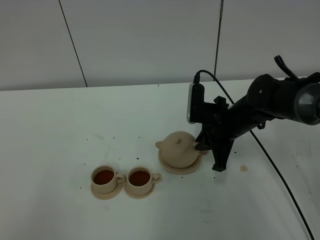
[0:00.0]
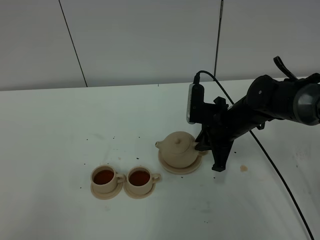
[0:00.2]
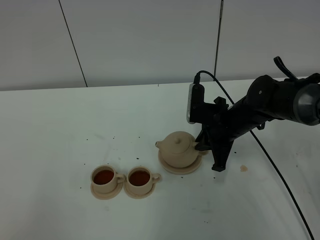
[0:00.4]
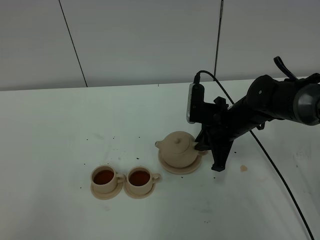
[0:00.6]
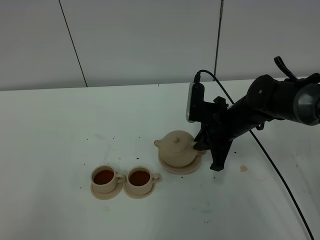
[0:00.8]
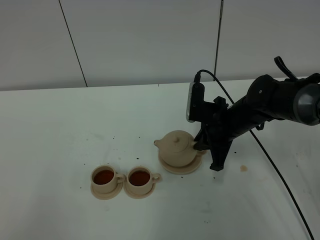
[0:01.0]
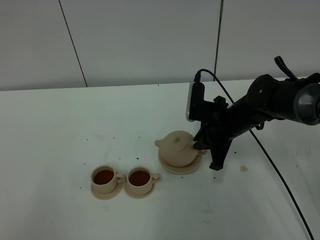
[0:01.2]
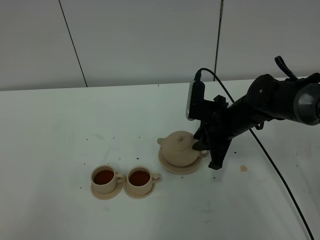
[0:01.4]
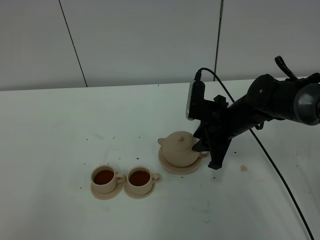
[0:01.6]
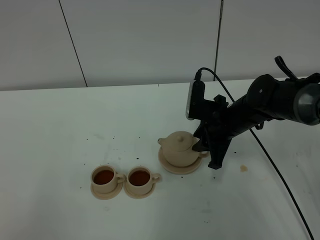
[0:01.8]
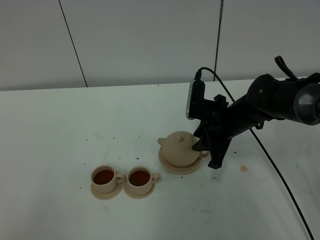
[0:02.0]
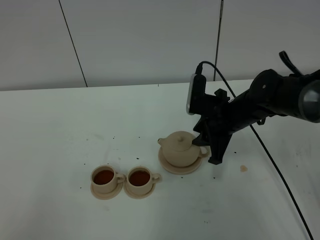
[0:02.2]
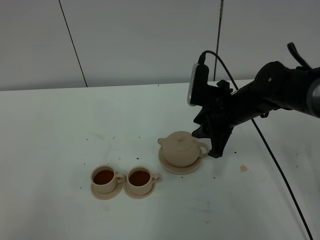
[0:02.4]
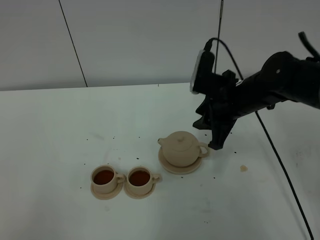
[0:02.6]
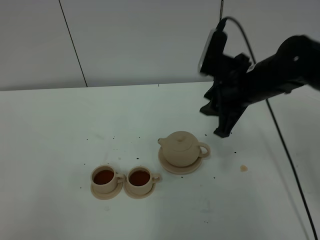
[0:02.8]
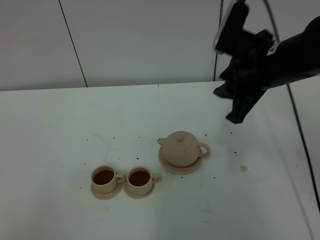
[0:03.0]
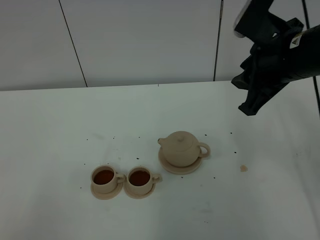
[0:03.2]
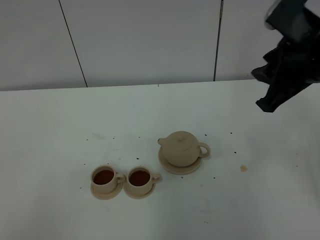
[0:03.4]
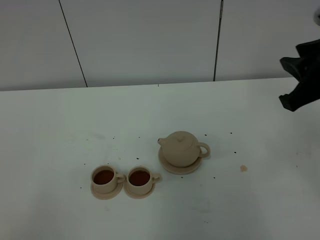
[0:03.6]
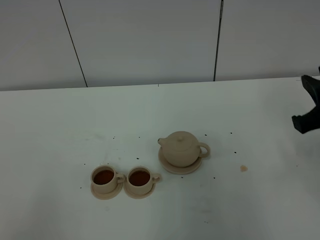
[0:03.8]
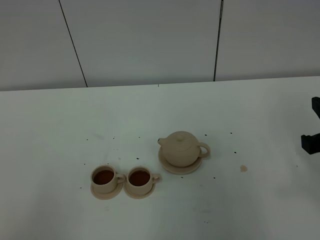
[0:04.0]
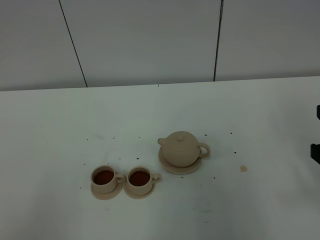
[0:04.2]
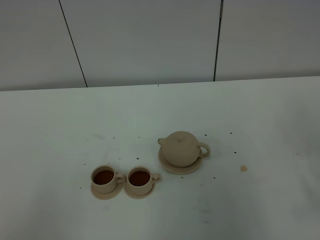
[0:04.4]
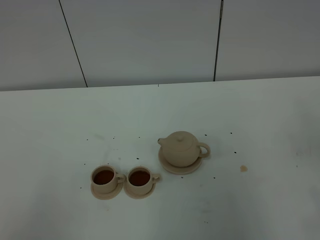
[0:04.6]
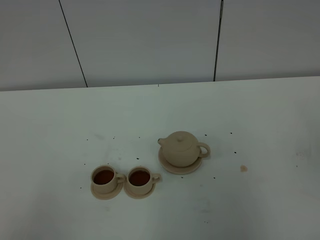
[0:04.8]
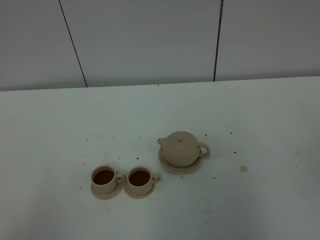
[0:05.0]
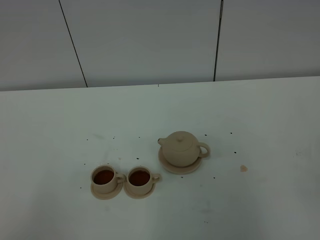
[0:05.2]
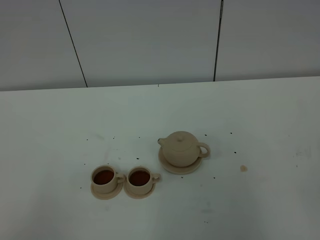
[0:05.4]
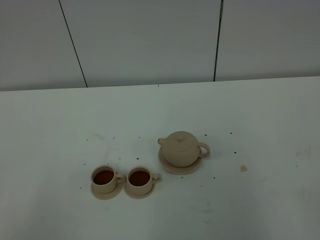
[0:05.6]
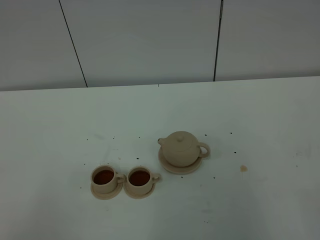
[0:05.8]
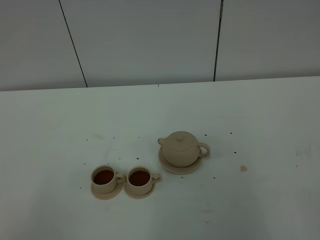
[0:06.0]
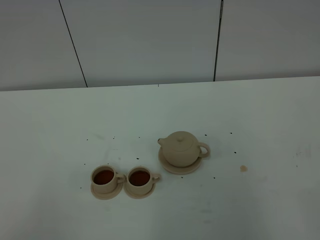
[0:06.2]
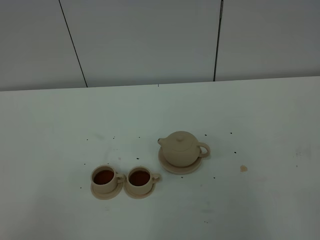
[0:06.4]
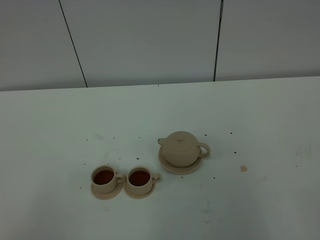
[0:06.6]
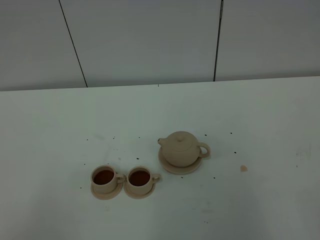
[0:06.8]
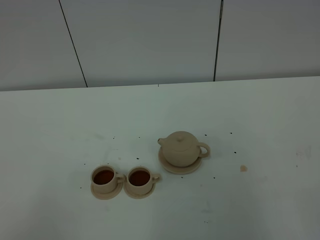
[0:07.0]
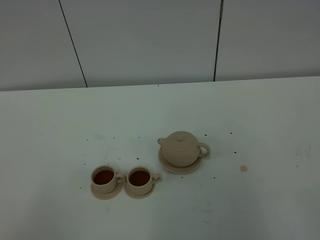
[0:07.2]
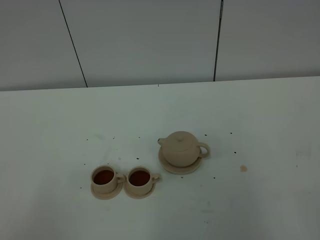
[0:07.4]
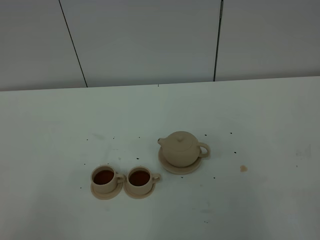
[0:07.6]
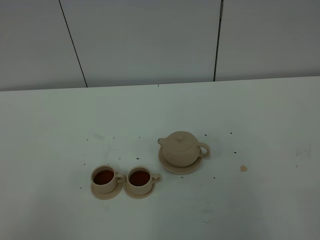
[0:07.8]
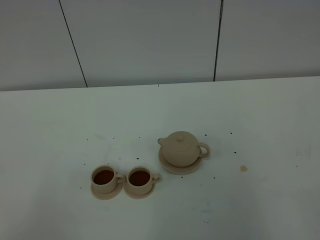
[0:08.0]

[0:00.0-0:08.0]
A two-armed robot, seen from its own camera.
Task of the whole recording: grasp the brown teapot and pour the tea into the two brown teacups one by one, put the brown teapot back in its original place.
0:00.0 to 0:01.6: The right gripper opens.
0:01.6 to 0:03.2: The right gripper goes roughly 20 cm upward.
0:03.2 to 0:04.8: The right gripper heads backward and to the right, covering about 25 cm.
0:06.4 to 0:08.0: Both grippers stay about where they are.

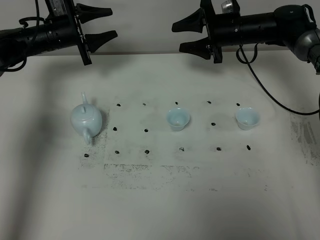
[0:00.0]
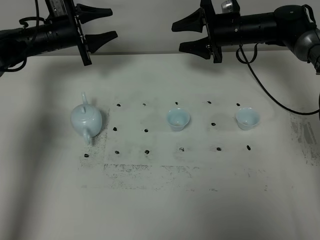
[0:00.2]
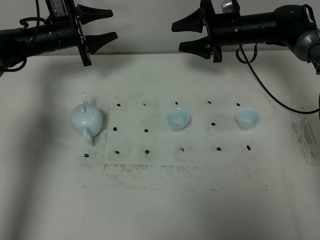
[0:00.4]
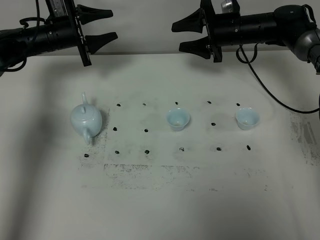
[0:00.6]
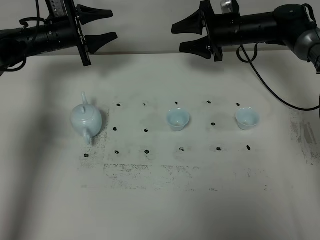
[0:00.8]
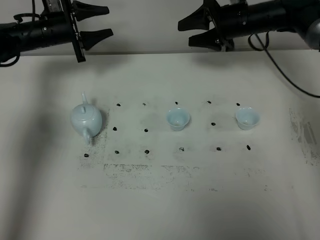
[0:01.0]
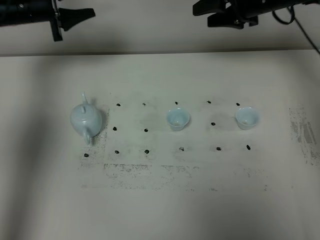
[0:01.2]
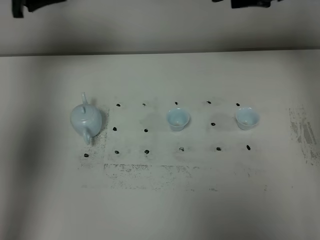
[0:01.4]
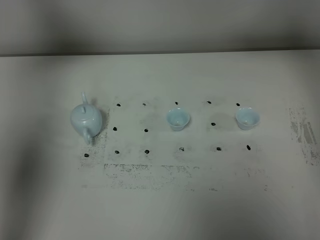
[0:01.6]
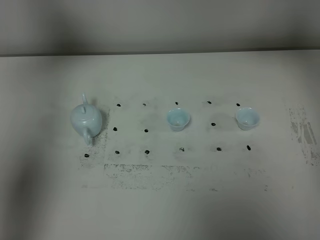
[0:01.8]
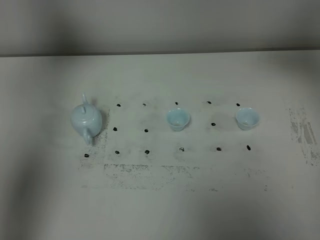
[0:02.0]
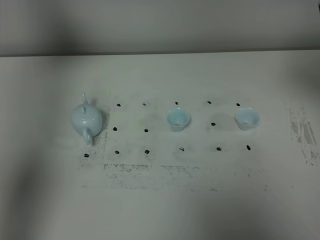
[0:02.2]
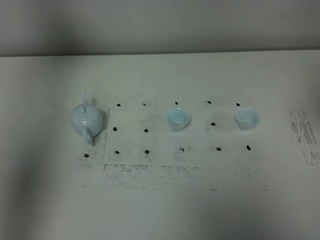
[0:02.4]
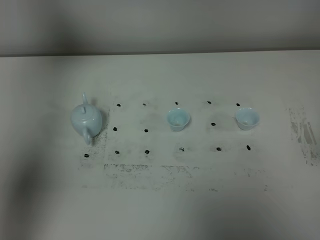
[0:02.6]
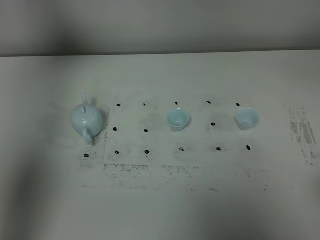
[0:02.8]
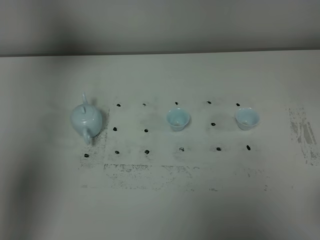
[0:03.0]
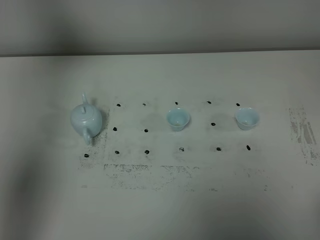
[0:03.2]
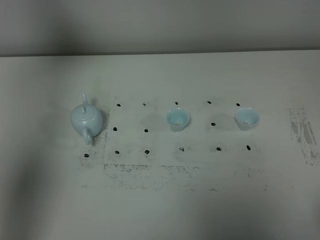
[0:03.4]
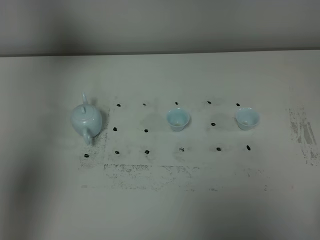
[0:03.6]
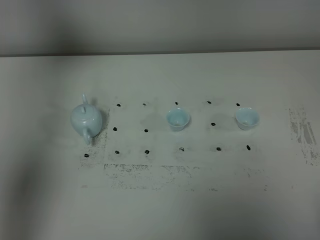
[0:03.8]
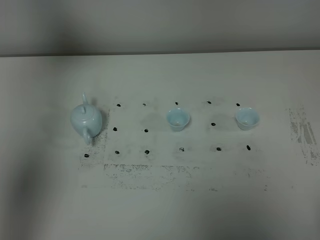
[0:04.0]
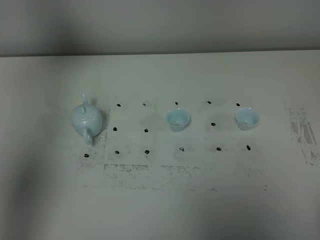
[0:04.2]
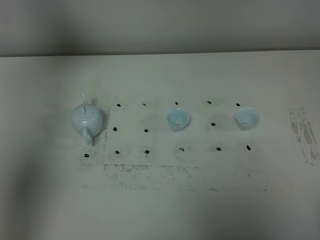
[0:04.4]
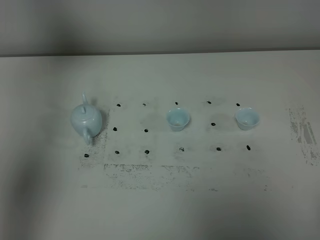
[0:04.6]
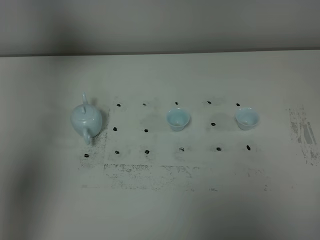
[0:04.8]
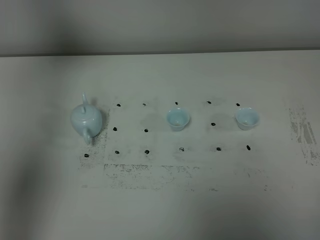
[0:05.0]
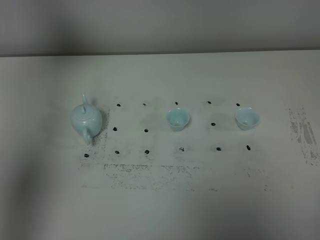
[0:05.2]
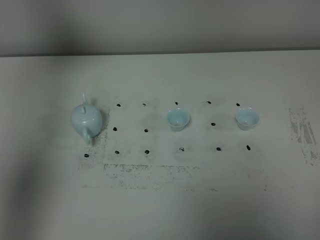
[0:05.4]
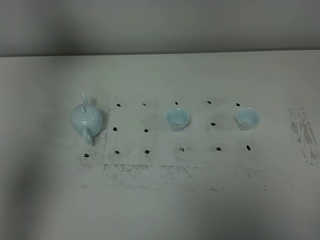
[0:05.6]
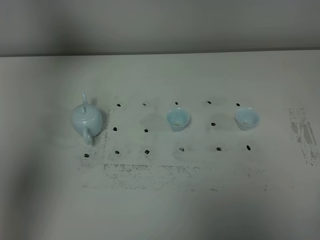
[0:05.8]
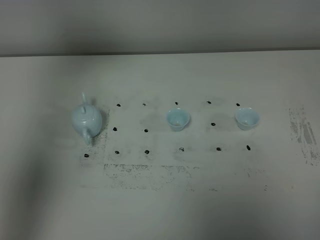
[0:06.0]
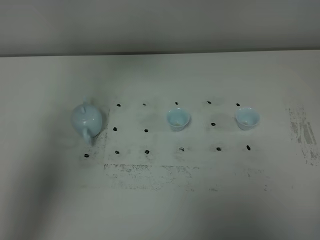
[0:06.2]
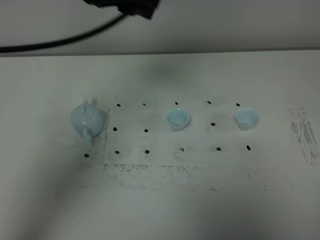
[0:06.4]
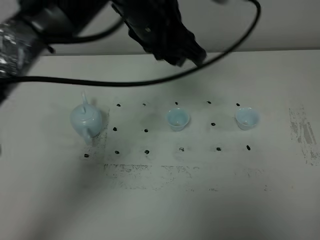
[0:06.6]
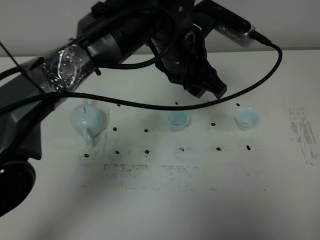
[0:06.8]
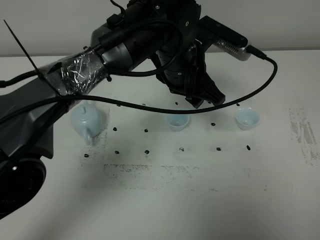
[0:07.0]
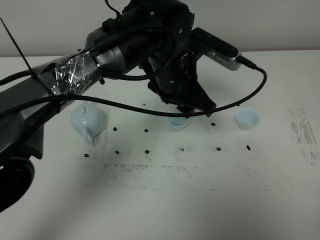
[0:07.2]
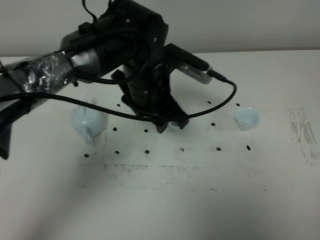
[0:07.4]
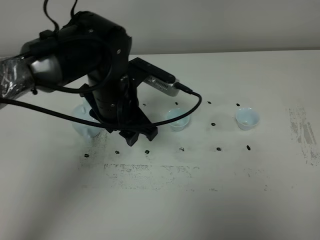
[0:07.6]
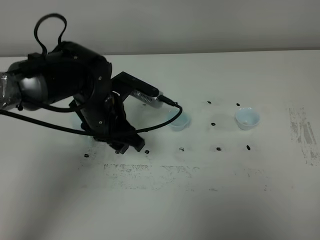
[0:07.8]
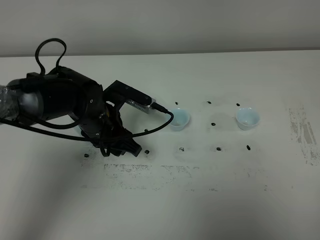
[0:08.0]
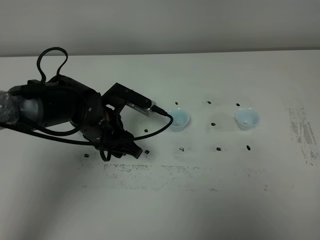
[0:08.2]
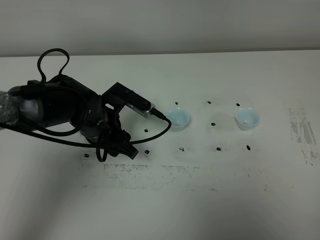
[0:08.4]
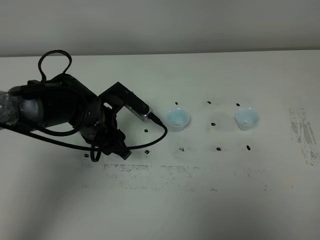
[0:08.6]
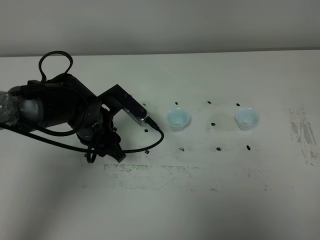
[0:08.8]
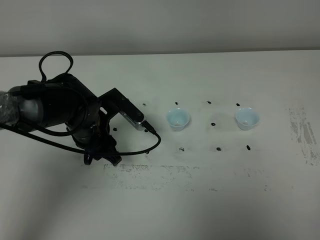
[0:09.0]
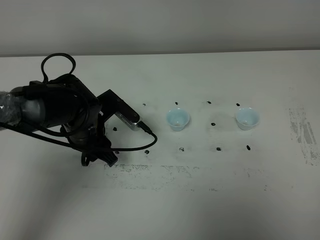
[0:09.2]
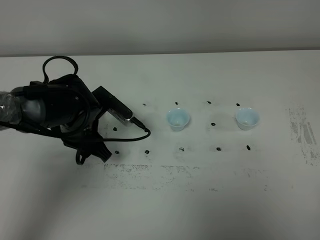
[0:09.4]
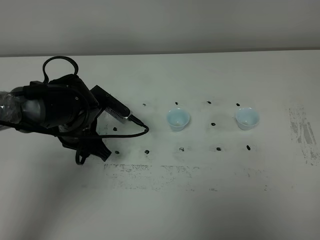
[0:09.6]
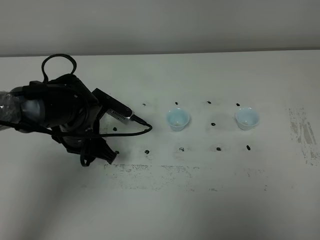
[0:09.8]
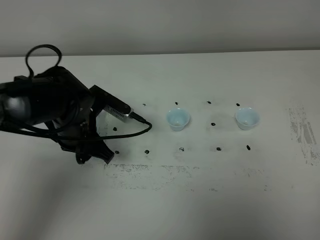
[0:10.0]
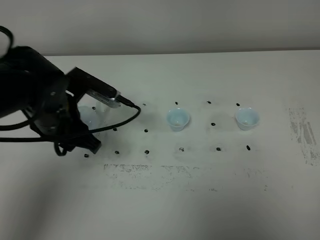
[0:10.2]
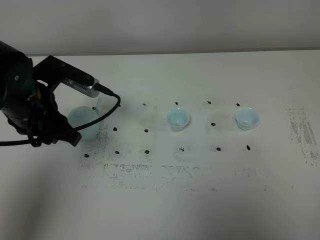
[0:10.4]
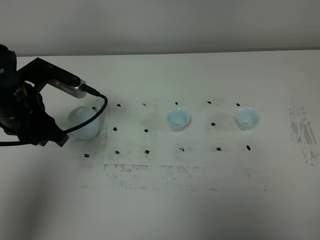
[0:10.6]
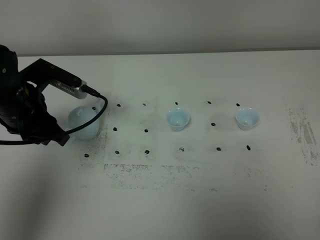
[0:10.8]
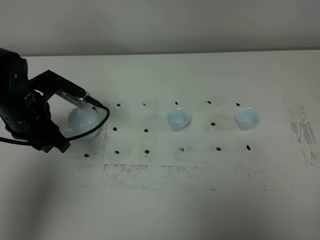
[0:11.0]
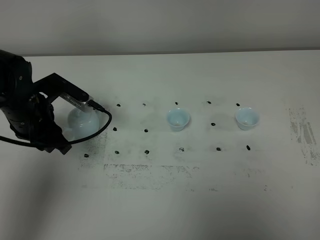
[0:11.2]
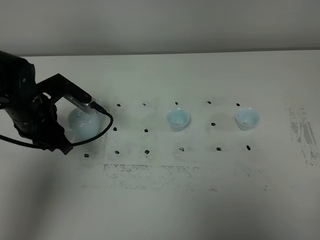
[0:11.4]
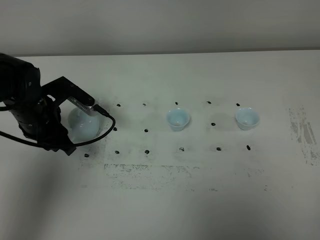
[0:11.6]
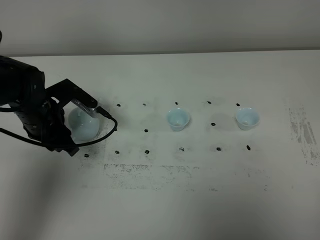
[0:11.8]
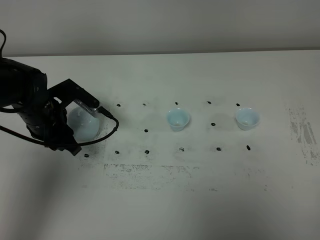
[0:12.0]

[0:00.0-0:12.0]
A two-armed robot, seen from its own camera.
Task of the whole recording: grasp the blue porcelain teapot and pour the tea into the two blue porcelain teacups one by one, put the blue porcelain teapot back in its original place.
0:00.0 to 0:01.6: The two grippers go about 25 cm upward and backward.
0:01.6 to 0:03.0: The right gripper is displaced backward by roughly 40 cm.
0:06.0 to 0:07.6: The left gripper shifts approximately 30 cm downward and to the right.
0:07.6 to 0:09.0: The left gripper goes approximately 10 cm downward and to the left.
0:09.0 to 0:10.4: The left gripper moves upward and to the left, roughly 10 cm.
0:10.4 to 0:12.0: The left gripper is displaced downward and forward by some 10 cm.

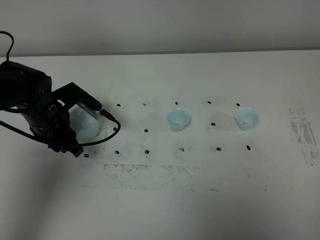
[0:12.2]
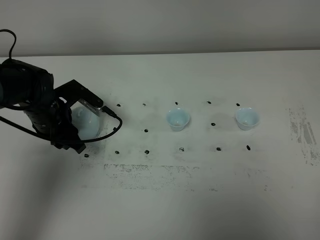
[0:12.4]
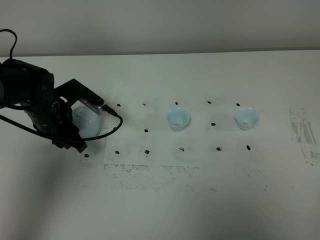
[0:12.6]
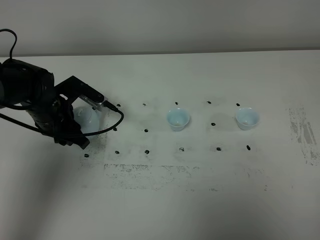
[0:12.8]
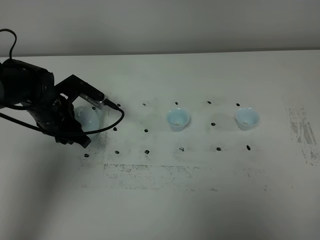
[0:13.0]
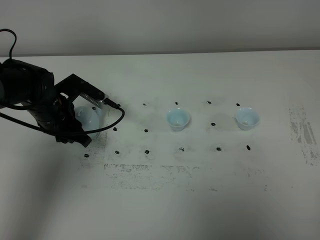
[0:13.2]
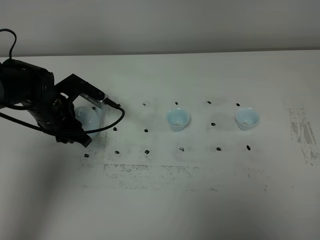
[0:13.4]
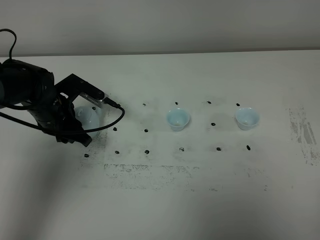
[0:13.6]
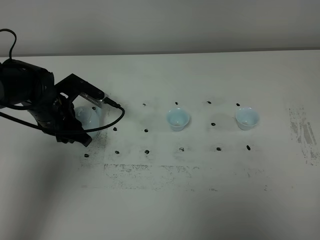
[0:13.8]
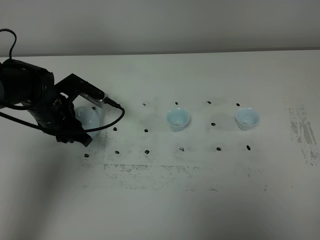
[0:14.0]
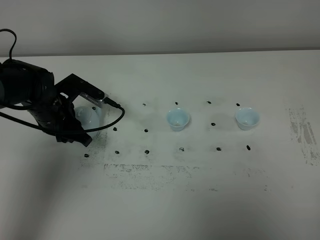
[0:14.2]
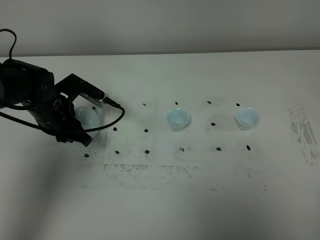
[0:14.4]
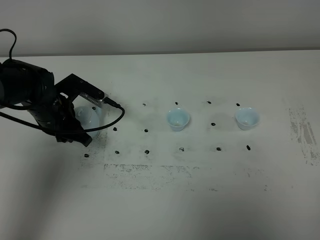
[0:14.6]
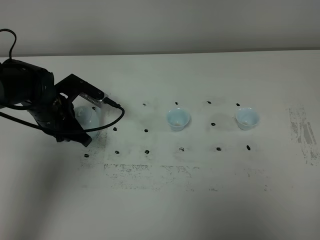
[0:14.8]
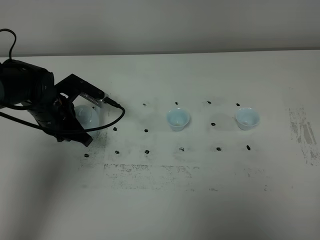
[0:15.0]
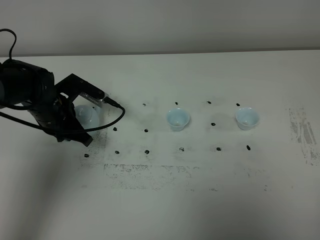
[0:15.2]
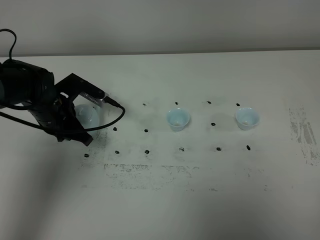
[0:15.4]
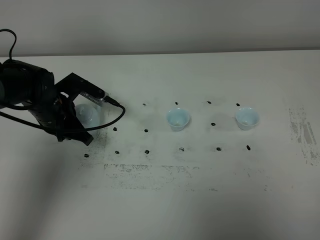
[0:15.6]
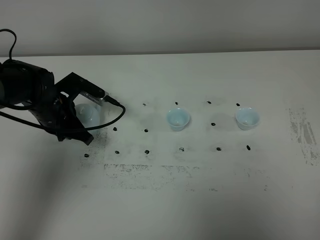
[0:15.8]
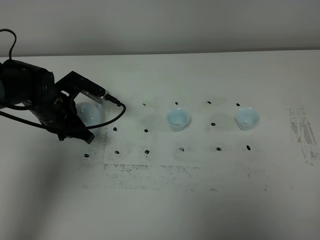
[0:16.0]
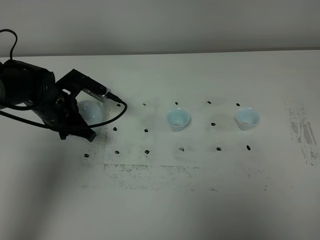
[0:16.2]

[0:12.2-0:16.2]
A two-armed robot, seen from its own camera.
Task of the whole recording: grasp the blue porcelain teapot and pour the tea into the two blue porcelain teacups one by one, put the blue porcelain teapot back in its original place.
0:12.2 to 0:13.6: There are only small adjustments of the grippers.
0:14.8 to 0:16.2: The grippers move only a little.
